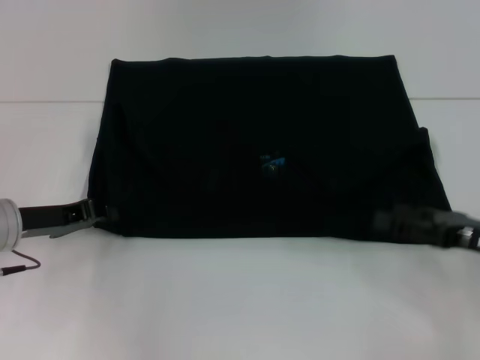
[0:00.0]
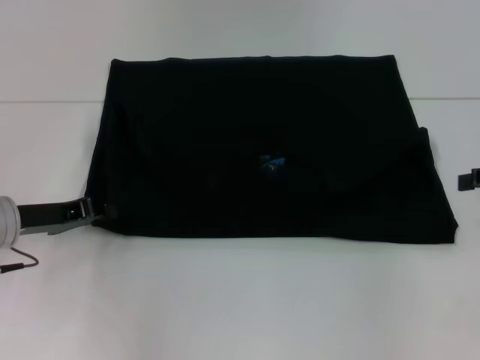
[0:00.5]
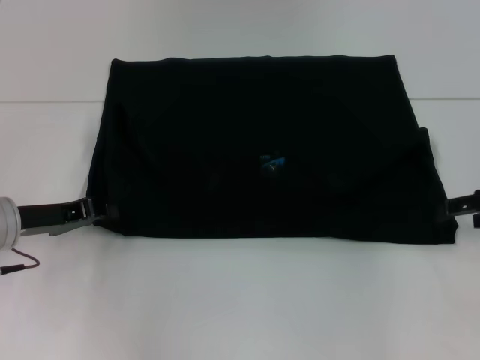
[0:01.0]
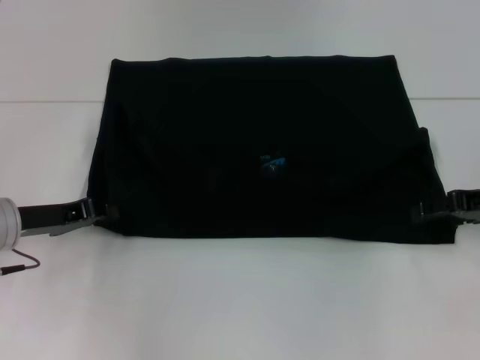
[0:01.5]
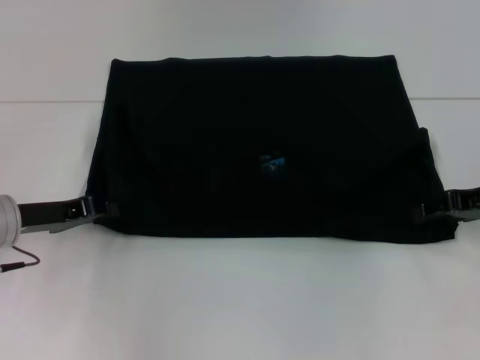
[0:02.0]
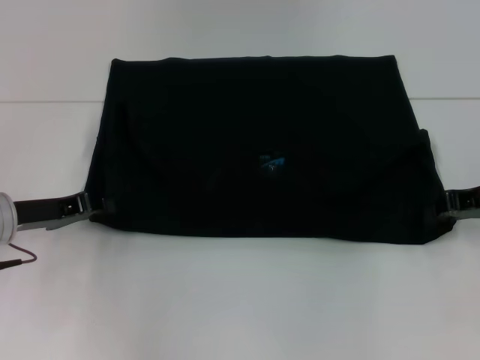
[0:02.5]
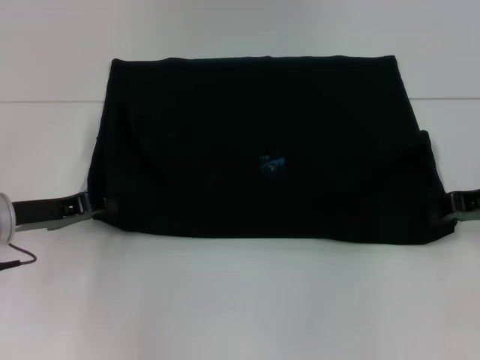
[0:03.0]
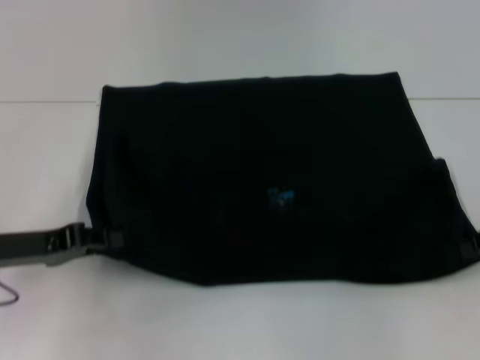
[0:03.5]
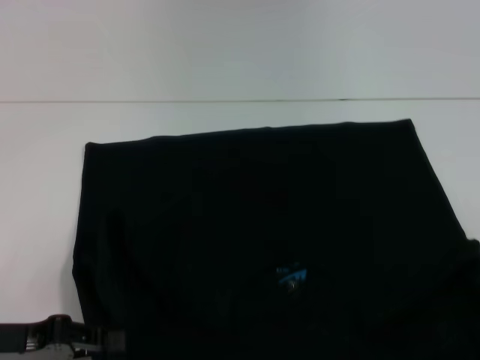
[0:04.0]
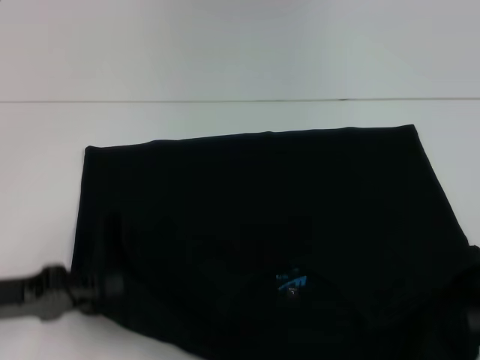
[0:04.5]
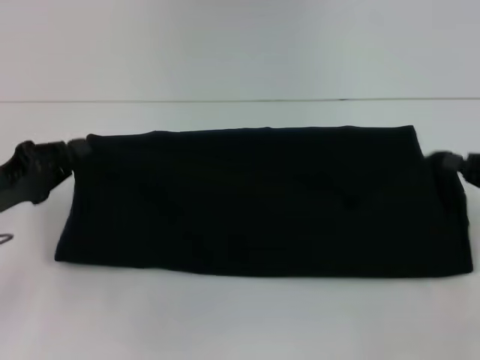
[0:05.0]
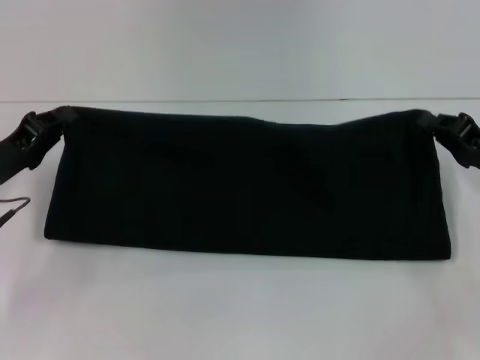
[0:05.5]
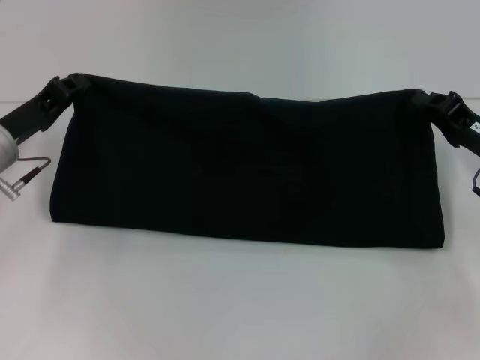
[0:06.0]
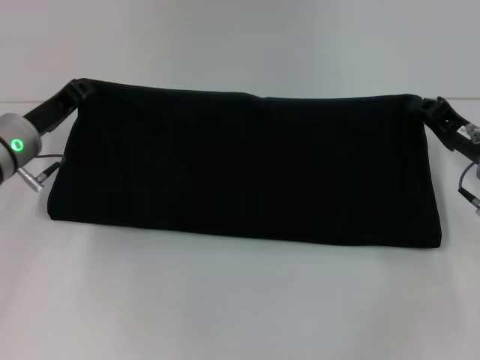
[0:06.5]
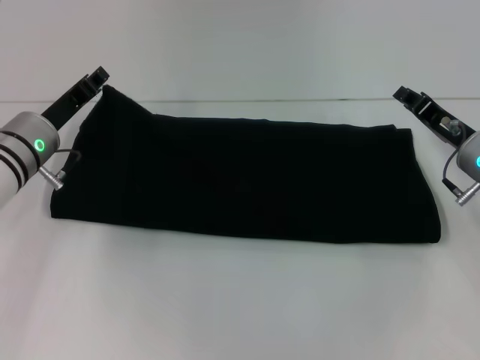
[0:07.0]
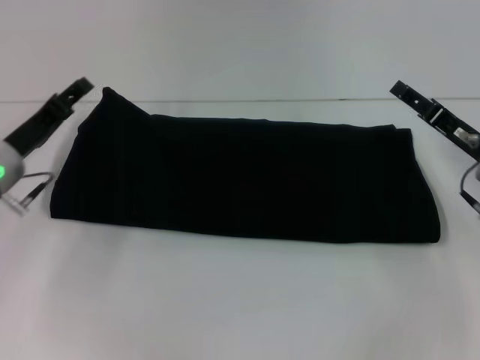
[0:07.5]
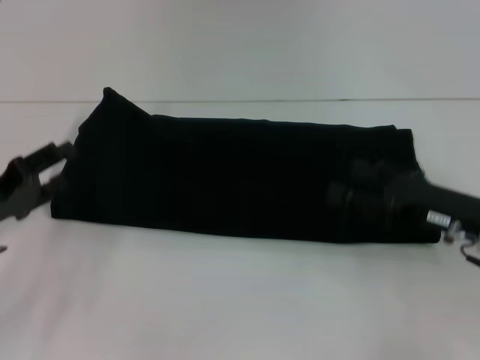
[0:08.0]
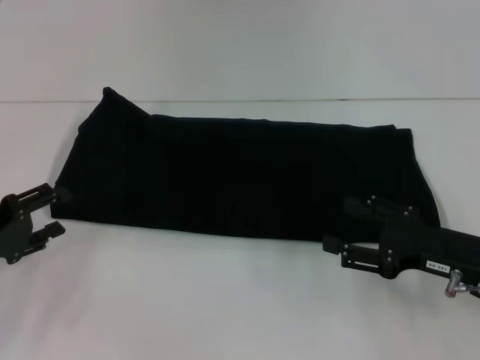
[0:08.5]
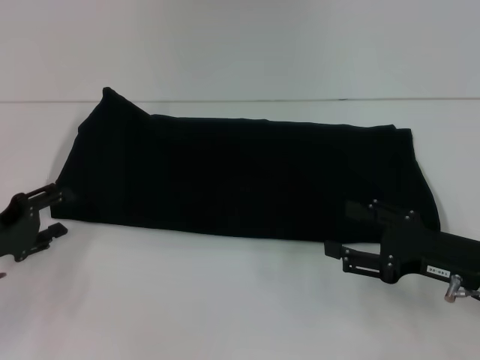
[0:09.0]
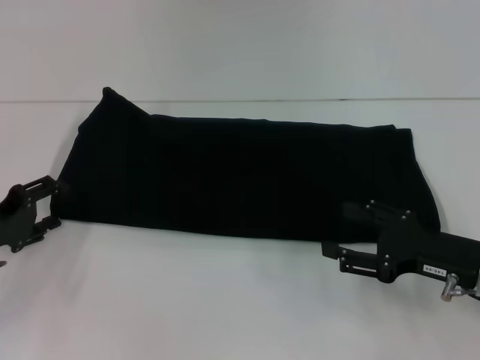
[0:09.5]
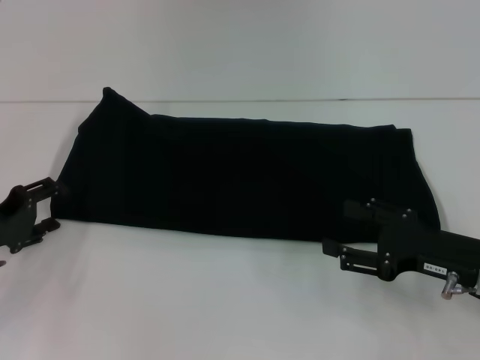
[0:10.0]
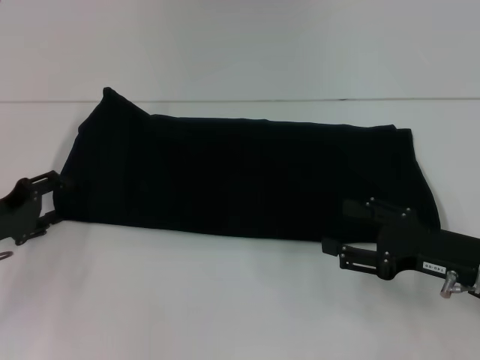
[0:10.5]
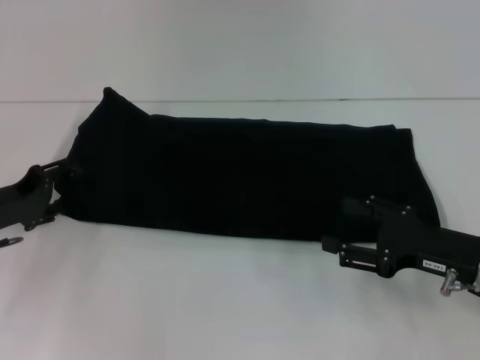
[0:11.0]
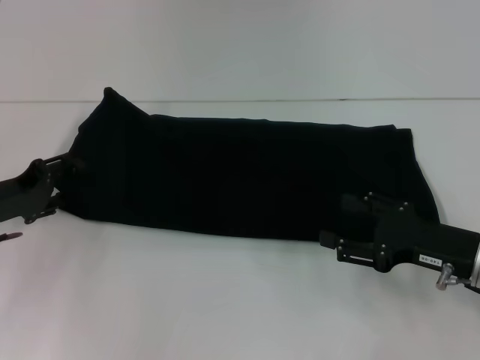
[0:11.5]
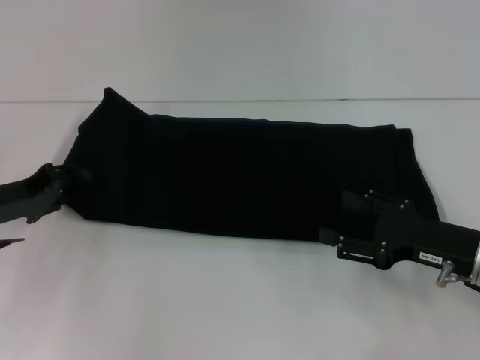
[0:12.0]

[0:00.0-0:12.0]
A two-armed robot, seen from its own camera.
Step, 0:00.0 to 0:04.0: Pull the clothes with your left hand.
Step, 0:00.0 to 0:04.0: Pull the clothes with your right hand.
Step, 0:04.5 to 0:07.0: Fold the clothes with your right hand.
0:00.0 to 0:02.0: The right gripper moves forward, roughly 10 cm.
0:02.0 to 0:04.0: The left gripper travels backward by about 10 cm; the right gripper travels backward and to the right by approximately 15 cm, and closes its fingers.
0:04.0 to 0:06.0: The left gripper goes roughly 15 cm forward, while the right gripper heads forward and to the left, covering about 15 cm.
0:06.0 to 0:08.0: The left gripper moves backward, about 10 cm, and opens. Meanwhile the right gripper shifts about 5 cm backward, and opens.
0:10.0 to 0:12.0: The grippers make only small movements.

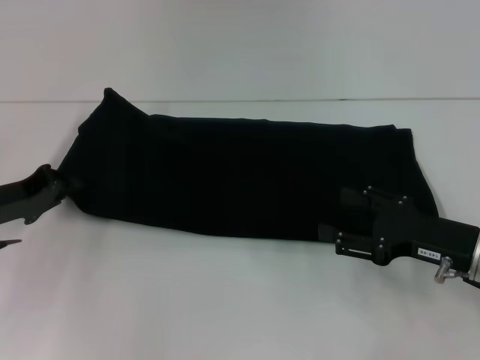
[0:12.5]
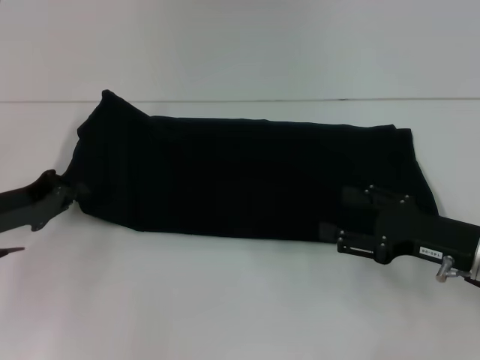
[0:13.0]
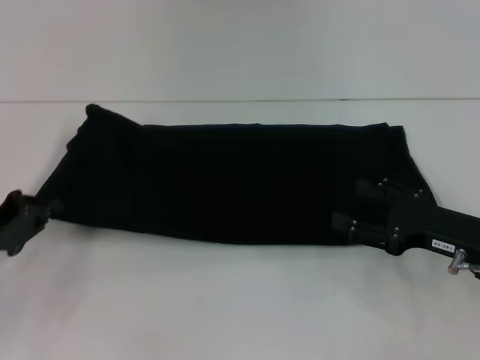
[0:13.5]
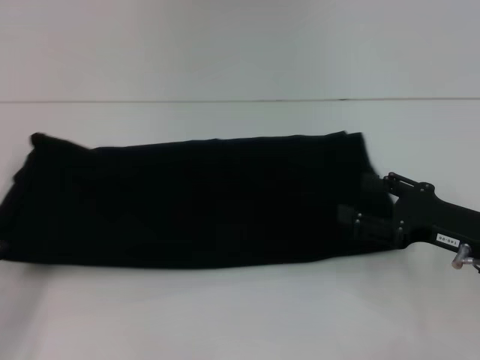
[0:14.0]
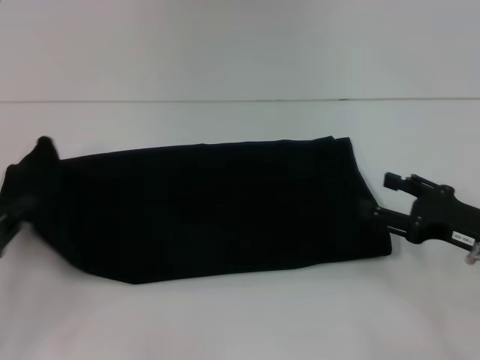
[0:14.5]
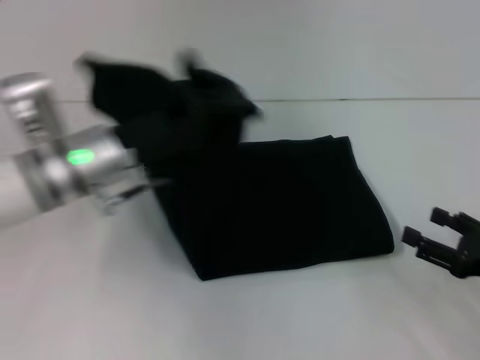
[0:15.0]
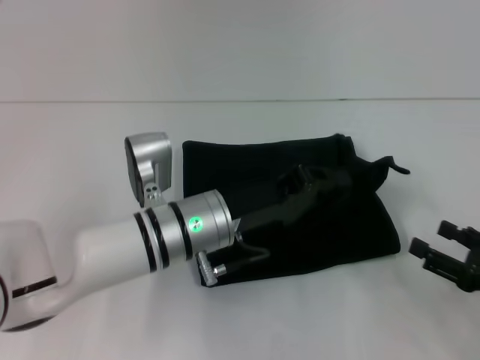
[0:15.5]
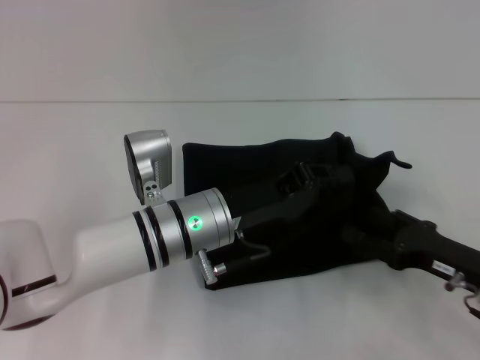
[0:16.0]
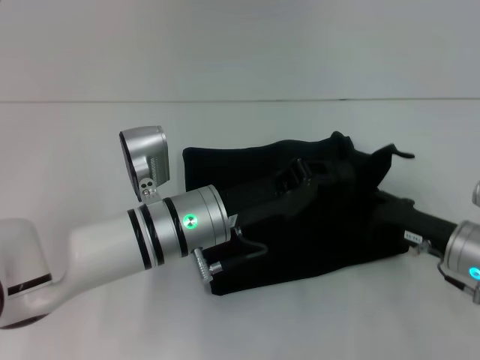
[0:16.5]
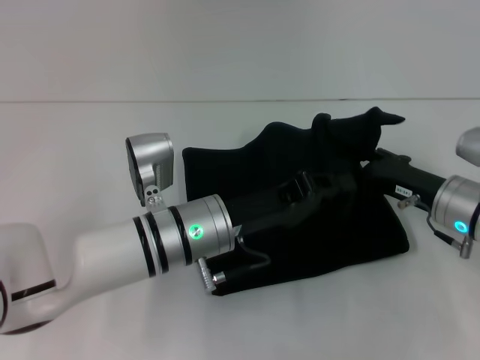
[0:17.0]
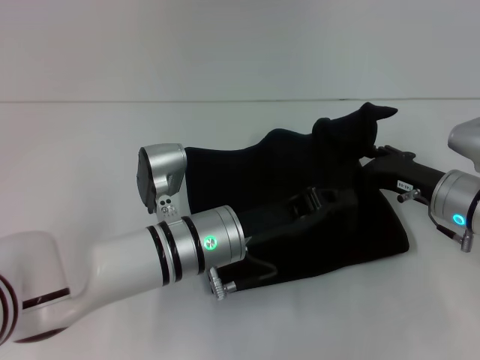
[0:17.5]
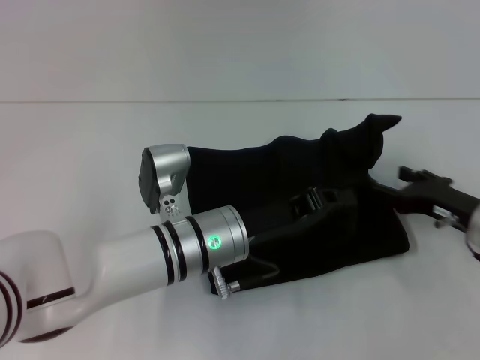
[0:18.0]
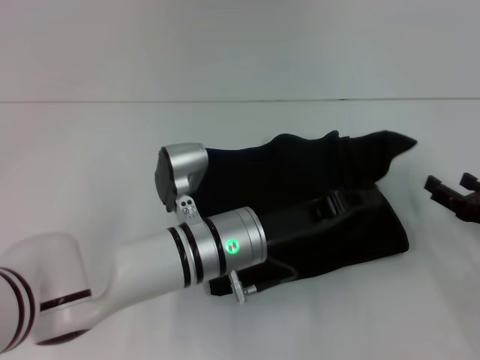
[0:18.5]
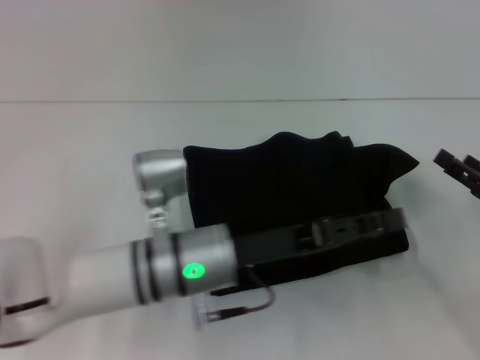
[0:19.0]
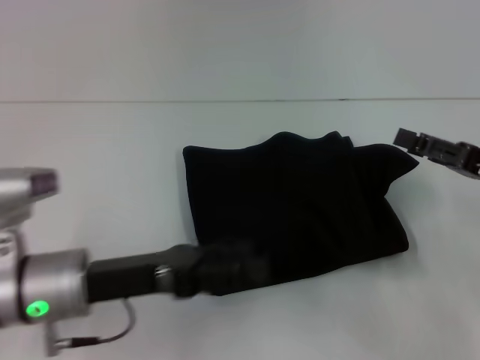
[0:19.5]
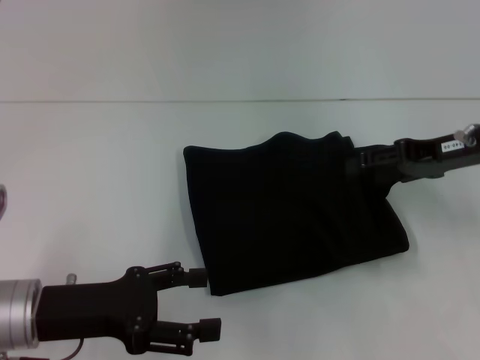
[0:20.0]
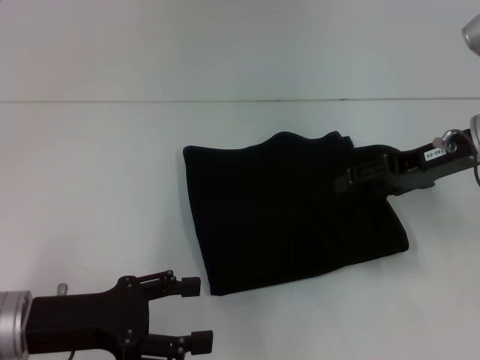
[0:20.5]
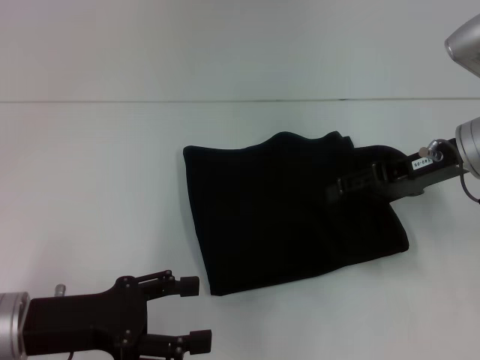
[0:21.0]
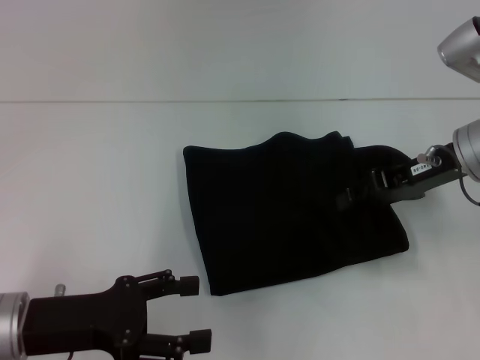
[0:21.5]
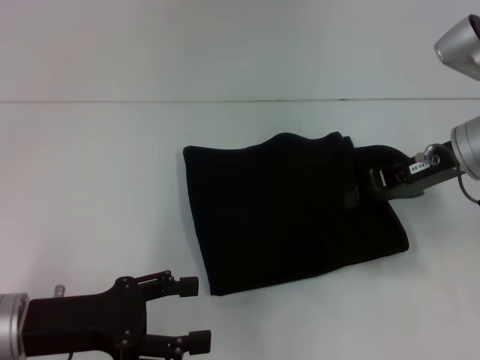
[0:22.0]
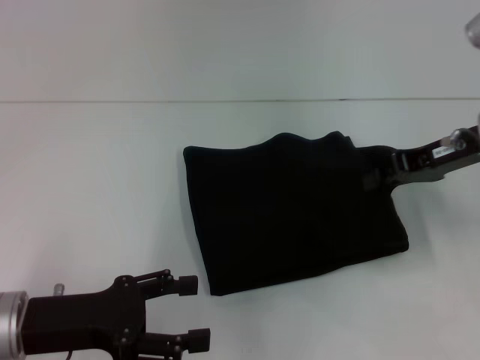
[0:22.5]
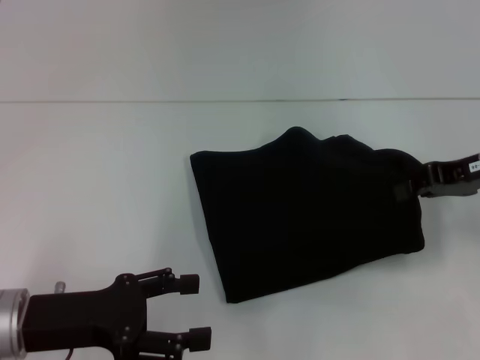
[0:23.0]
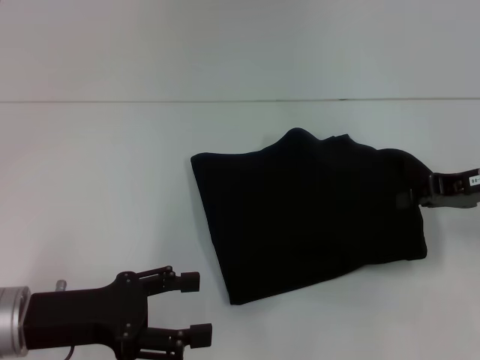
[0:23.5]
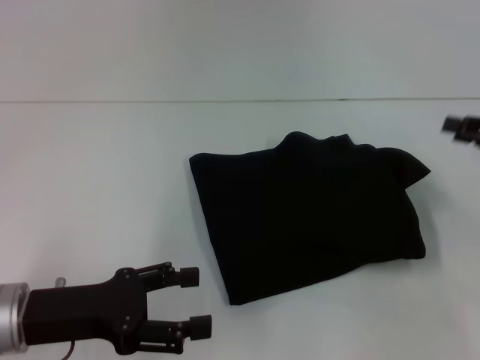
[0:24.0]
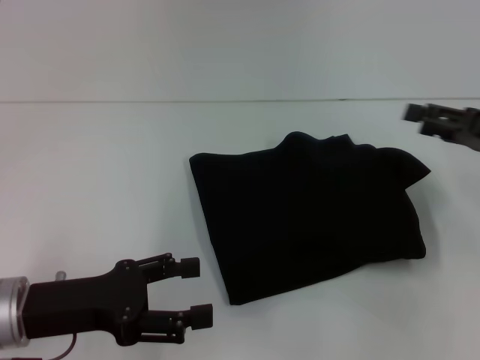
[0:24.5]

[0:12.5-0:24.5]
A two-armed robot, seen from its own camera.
Step, 0:12.5 to 0:18.5: Fold the clothes with your left hand.
0:12.5 to 0:14.5: The left gripper travels backward by about 10 cm.
0:14.5 to 0:16.5: The right gripper moves some 5 cm backward and comes back; the left gripper heads to the right, covering roughly 25 cm.
0:16.5 to 0:18.5: The right gripper goes about 10 cm to the right.
0:18.5 to 0:20.5: The left gripper is displaced to the left and backward by roughly 20 cm, and opens. The right gripper is displaced upward, forward and to the left by approximately 20 cm.
0:20.5 to 0:22.5: The right gripper closes up.
0:22.5 to 0:24.5: The right gripper is displaced to the right by approximately 5 cm, and opens its fingers.

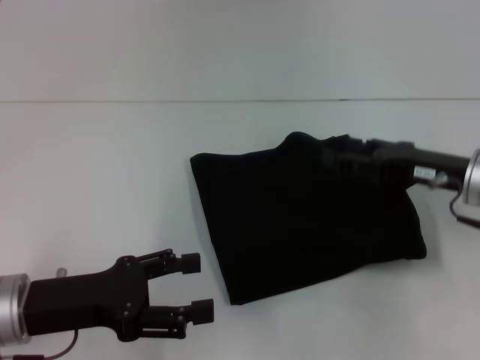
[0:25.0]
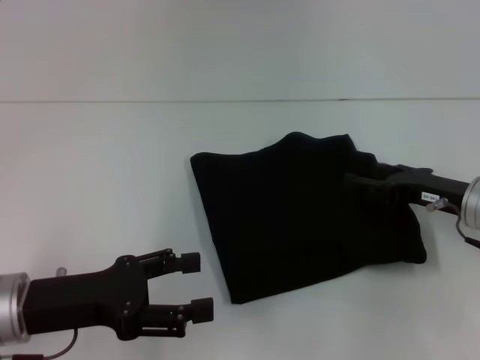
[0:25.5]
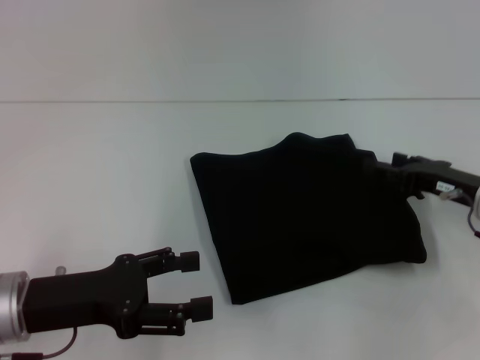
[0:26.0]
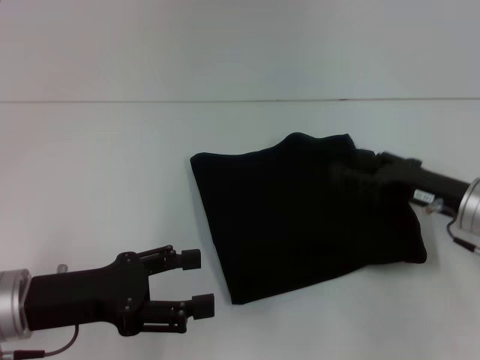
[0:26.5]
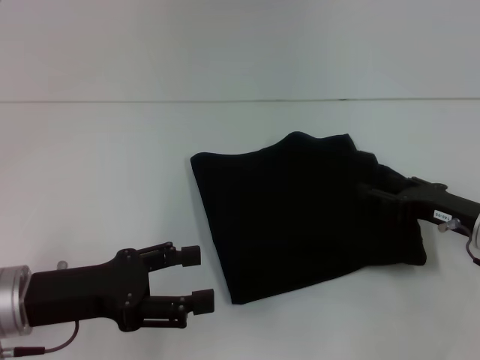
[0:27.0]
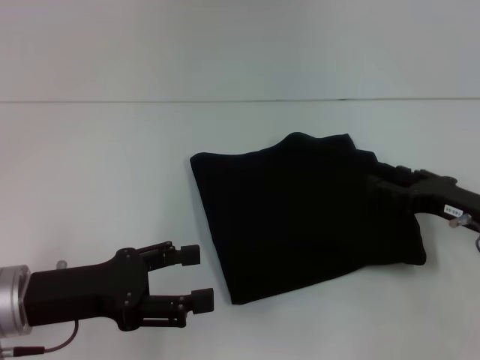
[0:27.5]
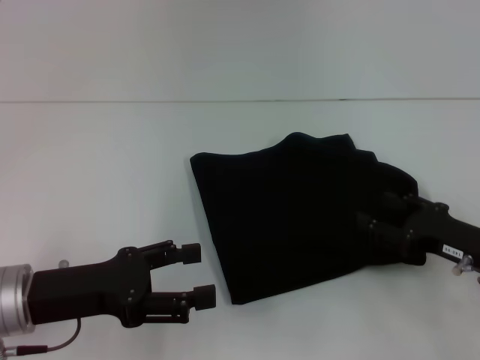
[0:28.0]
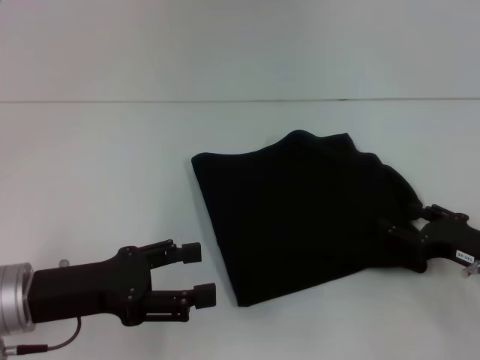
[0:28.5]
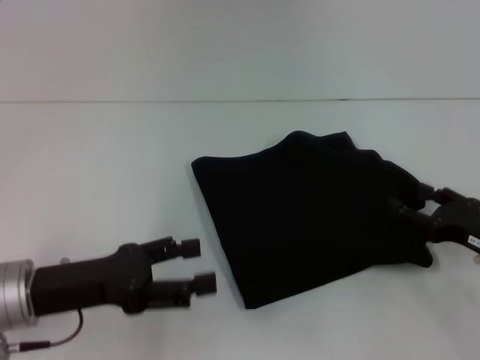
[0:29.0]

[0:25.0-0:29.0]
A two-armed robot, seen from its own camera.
0:25.0 to 0:27.0: The right gripper heads downward, covering about 5 cm.
0:27.0 to 0:29.0: The grippers move only a little.
